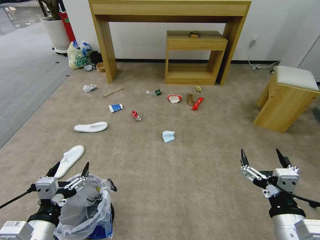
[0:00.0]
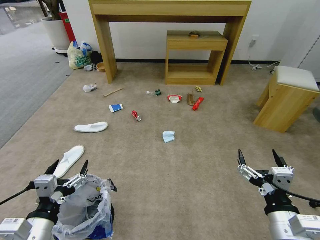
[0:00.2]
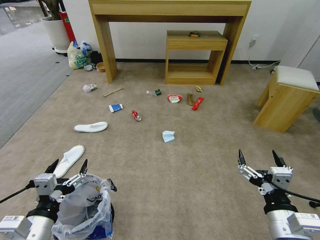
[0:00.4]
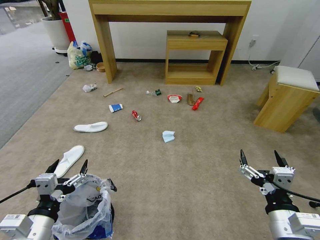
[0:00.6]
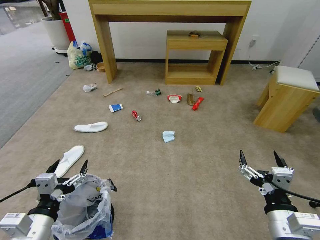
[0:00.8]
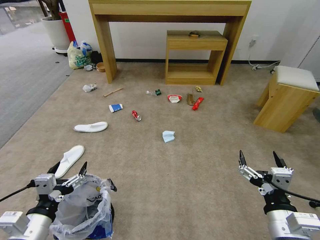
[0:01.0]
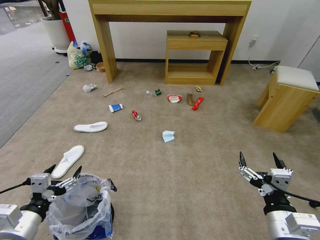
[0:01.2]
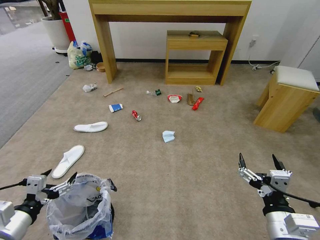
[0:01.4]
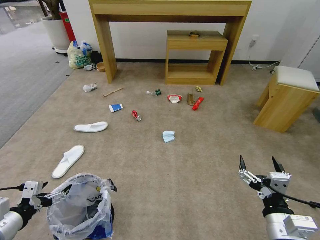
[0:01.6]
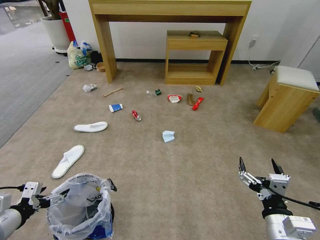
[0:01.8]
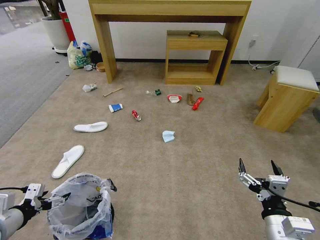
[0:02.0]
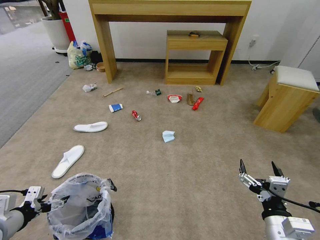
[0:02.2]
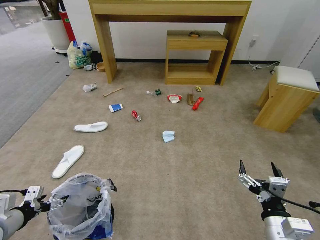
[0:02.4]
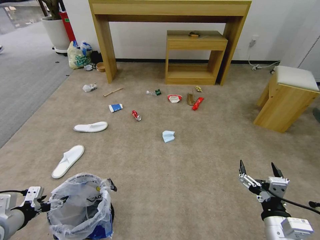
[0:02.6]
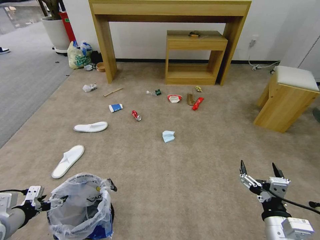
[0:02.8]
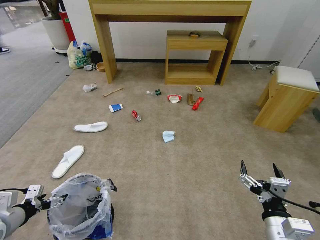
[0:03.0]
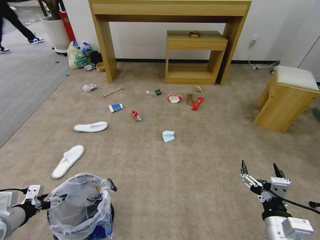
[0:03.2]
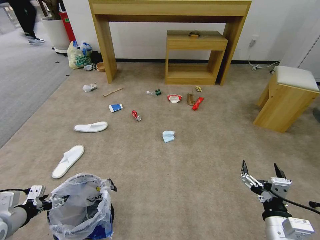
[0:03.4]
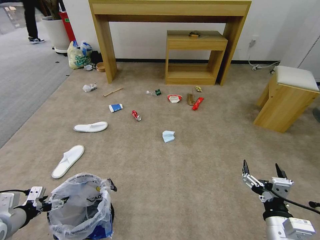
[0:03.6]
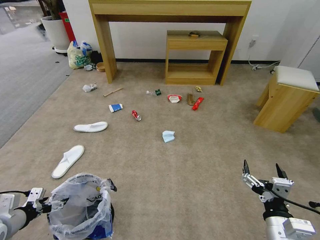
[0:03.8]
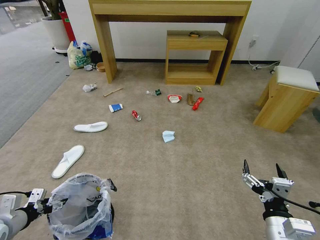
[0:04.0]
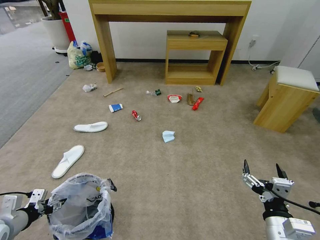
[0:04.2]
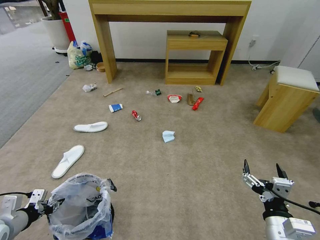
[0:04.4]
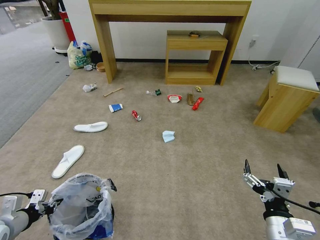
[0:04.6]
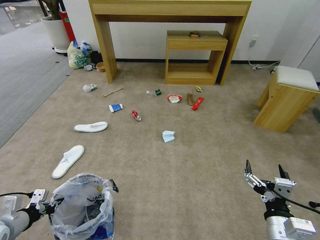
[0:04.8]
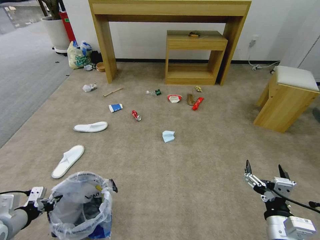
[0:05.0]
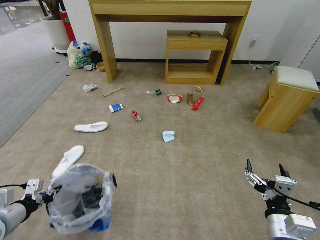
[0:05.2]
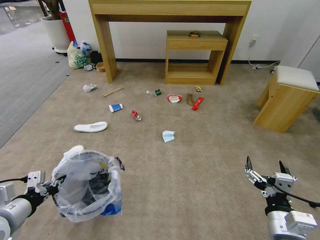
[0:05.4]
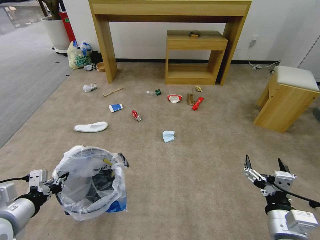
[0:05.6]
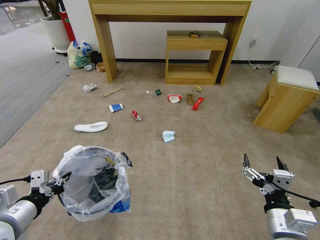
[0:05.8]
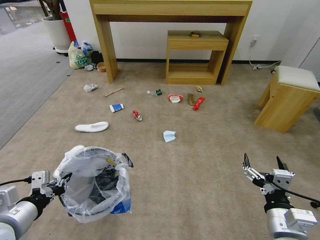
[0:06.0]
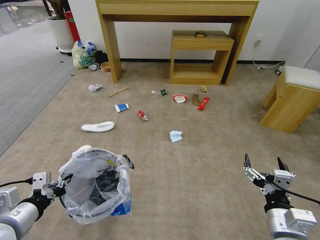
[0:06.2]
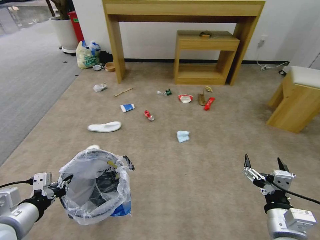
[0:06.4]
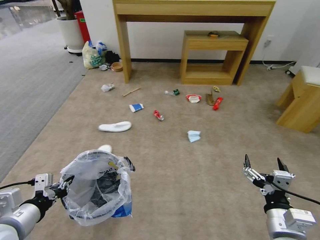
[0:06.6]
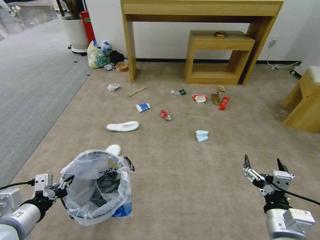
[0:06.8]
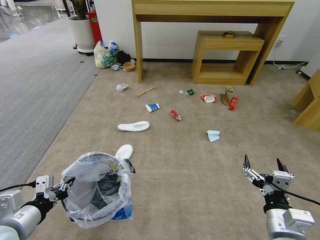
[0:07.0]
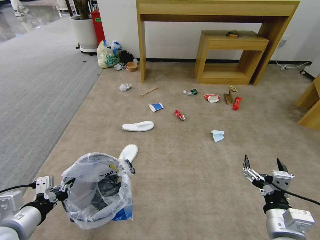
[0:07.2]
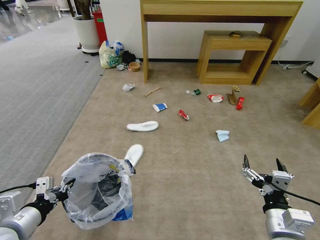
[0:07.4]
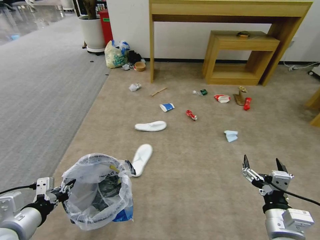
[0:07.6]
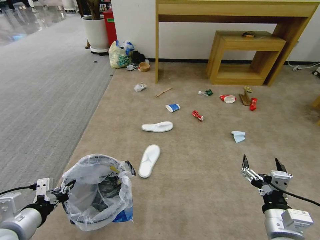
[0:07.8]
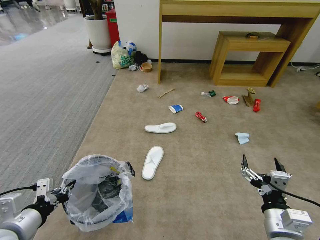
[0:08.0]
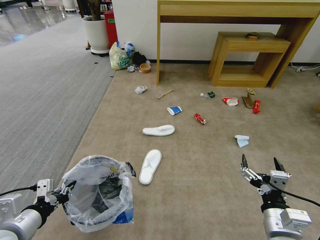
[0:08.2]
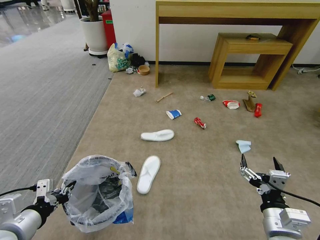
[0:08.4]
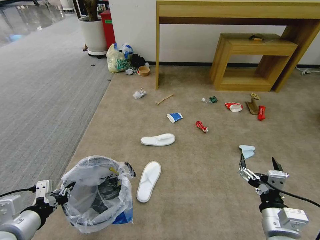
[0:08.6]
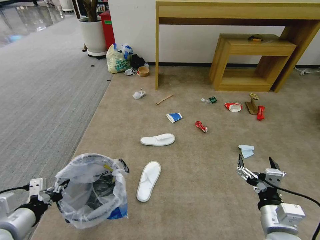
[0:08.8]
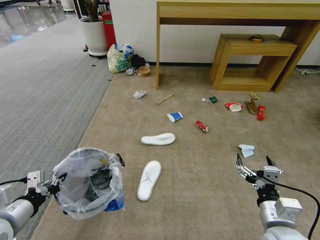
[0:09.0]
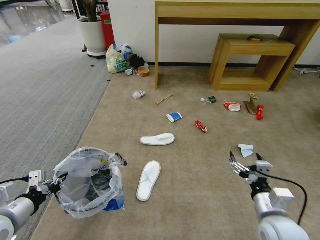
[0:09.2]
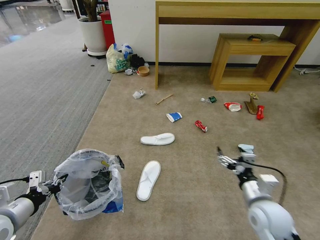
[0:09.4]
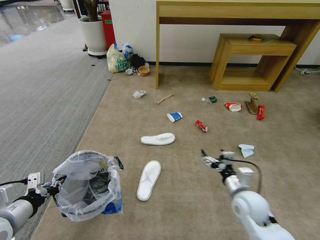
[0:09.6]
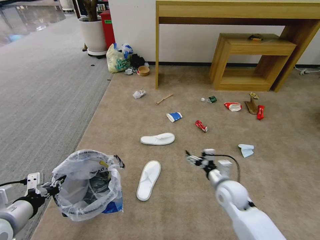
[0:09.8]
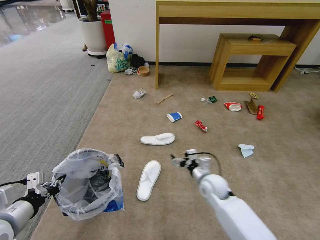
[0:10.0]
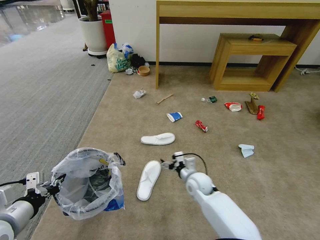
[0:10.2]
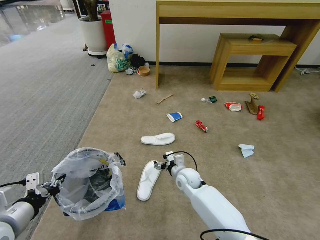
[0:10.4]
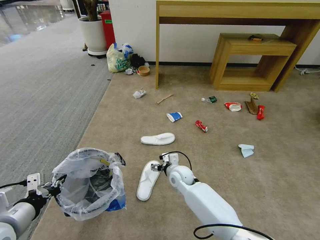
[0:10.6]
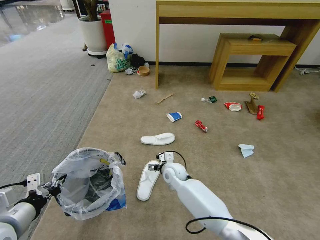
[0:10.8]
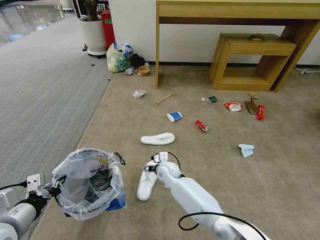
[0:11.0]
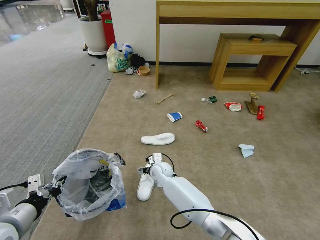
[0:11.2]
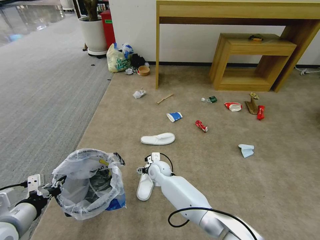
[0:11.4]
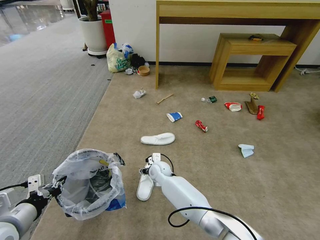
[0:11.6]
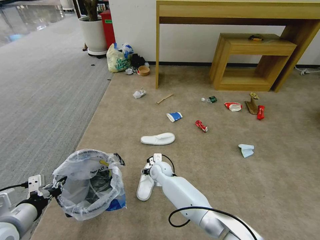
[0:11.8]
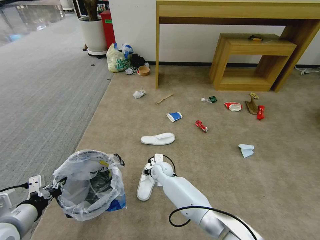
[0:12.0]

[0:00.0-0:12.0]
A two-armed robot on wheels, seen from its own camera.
Task of the whole recording: Pick up the trash bin and place the garbage on the floor into it.
0:01.6 to 0:03.0: The left gripper ends up approximately 10 cm from where it was.
0:03.0 to 0:04.4: The left gripper closes up.
0:04.4 to 0:06.0: The left gripper travels to the right and upward by approximately 15 cm.
0:09.0 to 0:10.4: The right gripper moves forward, to the left and downward, some 35 cm.
0:10.4 to 0:12.0: The right gripper shifts some 10 cm to the left, and closes.

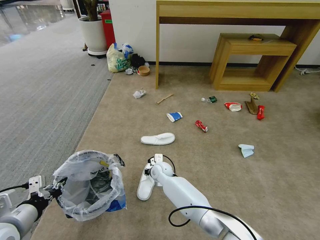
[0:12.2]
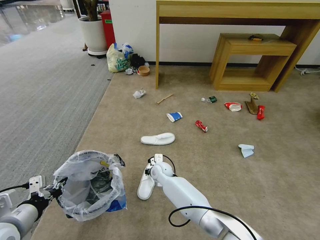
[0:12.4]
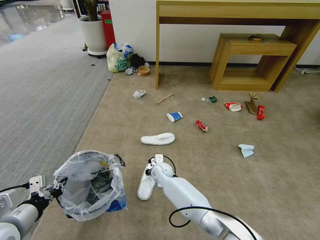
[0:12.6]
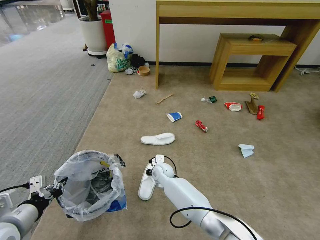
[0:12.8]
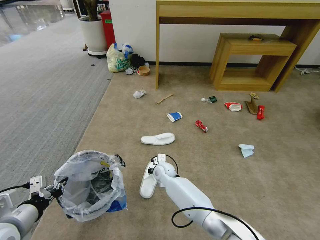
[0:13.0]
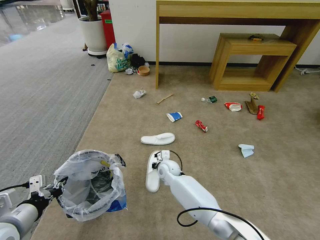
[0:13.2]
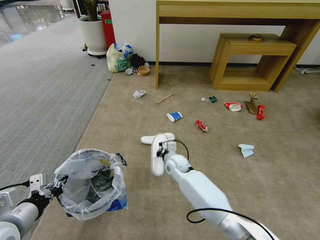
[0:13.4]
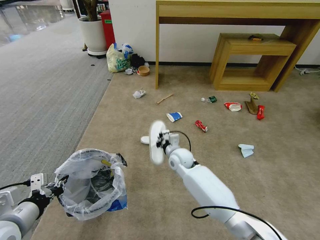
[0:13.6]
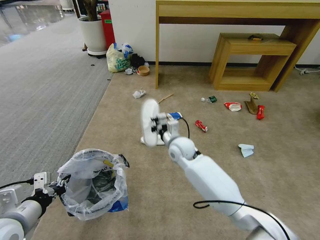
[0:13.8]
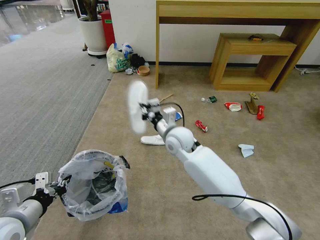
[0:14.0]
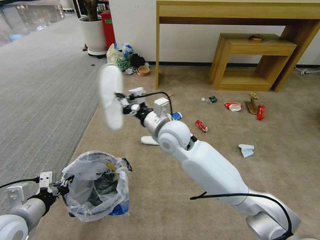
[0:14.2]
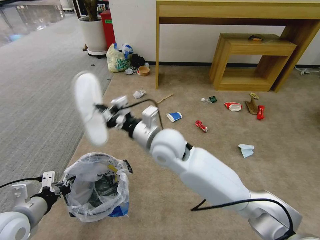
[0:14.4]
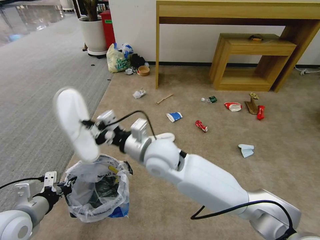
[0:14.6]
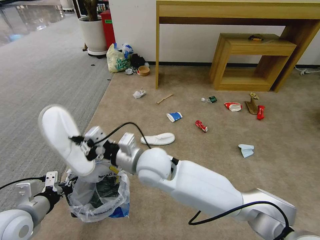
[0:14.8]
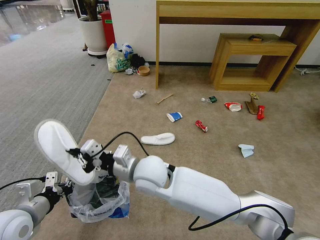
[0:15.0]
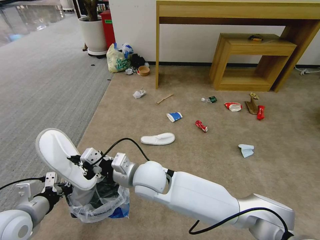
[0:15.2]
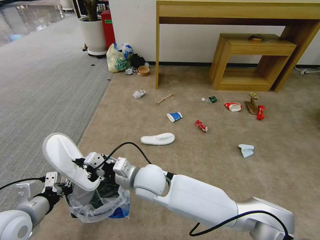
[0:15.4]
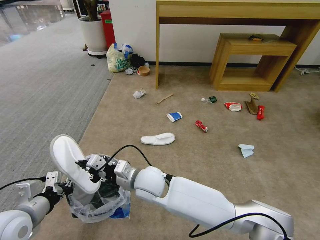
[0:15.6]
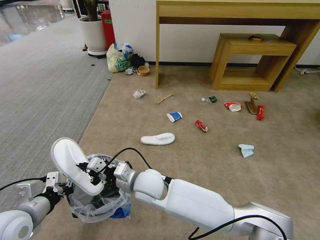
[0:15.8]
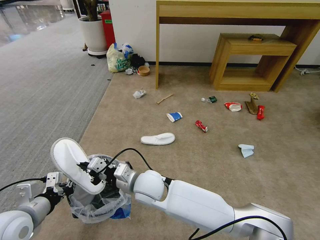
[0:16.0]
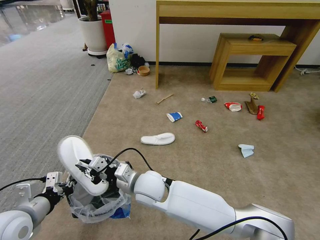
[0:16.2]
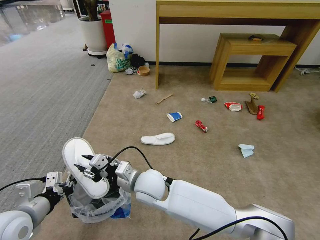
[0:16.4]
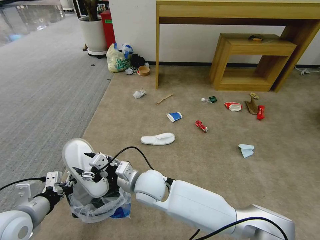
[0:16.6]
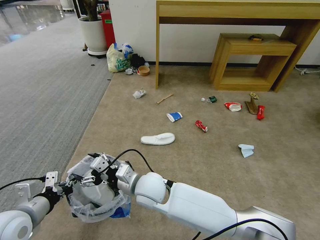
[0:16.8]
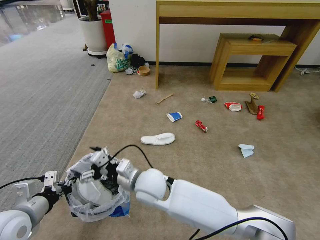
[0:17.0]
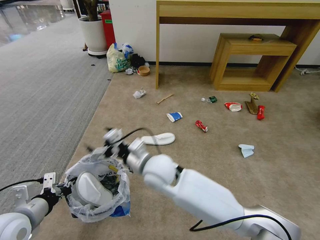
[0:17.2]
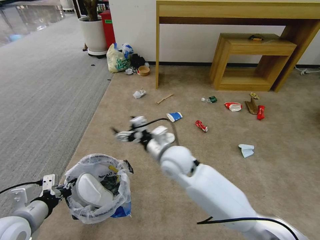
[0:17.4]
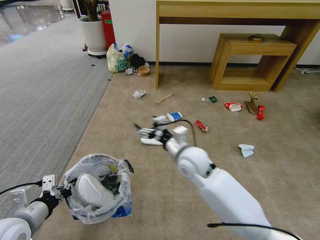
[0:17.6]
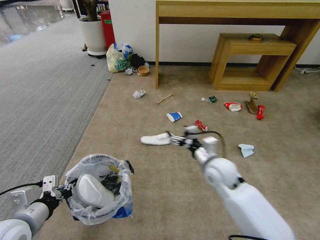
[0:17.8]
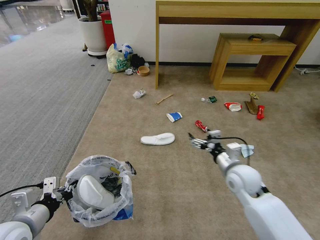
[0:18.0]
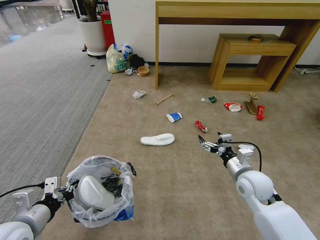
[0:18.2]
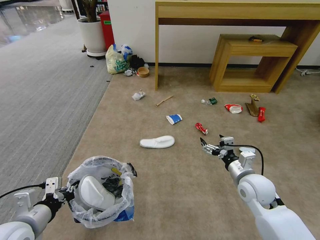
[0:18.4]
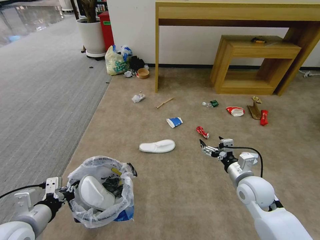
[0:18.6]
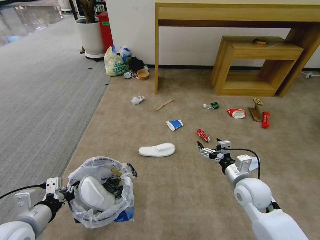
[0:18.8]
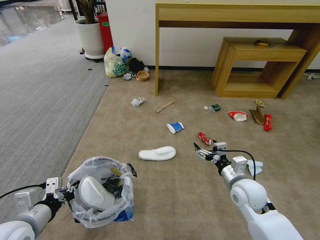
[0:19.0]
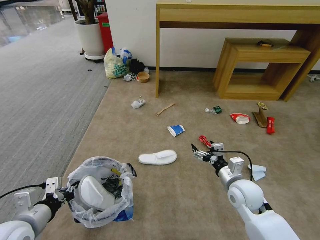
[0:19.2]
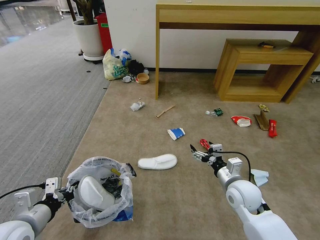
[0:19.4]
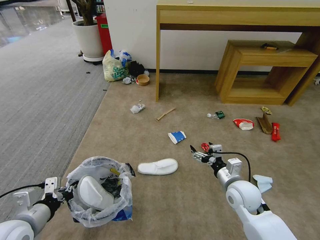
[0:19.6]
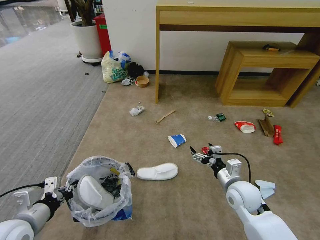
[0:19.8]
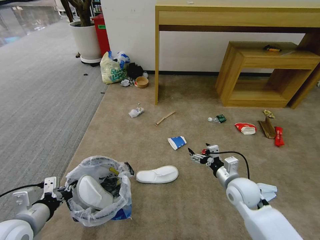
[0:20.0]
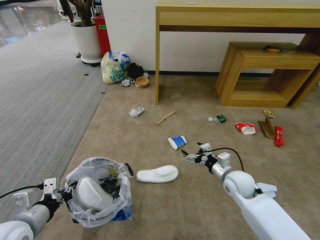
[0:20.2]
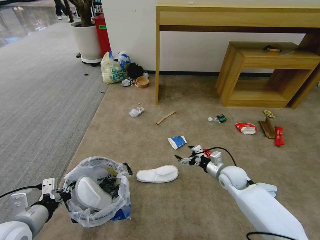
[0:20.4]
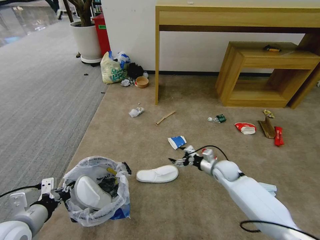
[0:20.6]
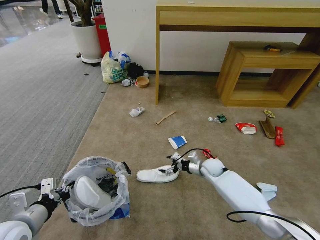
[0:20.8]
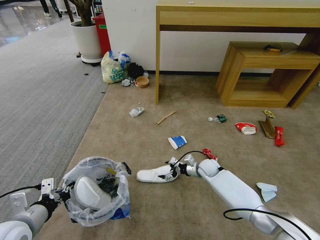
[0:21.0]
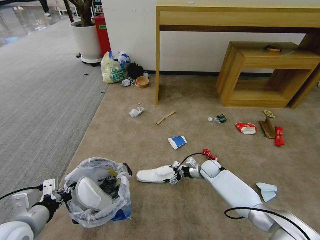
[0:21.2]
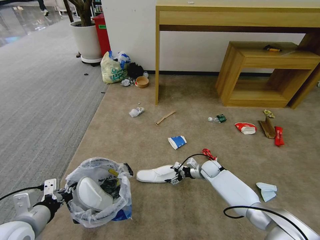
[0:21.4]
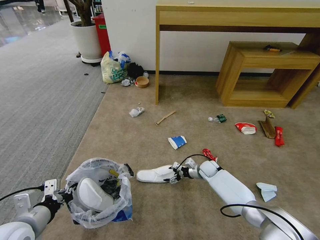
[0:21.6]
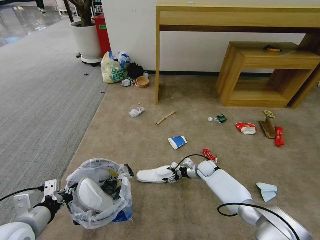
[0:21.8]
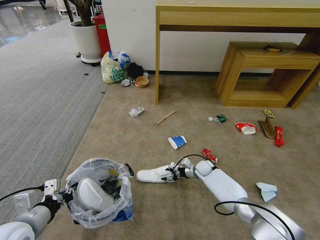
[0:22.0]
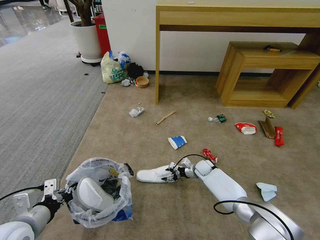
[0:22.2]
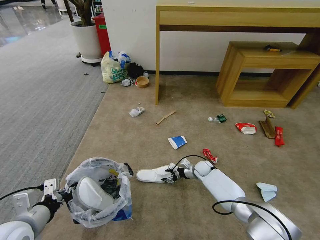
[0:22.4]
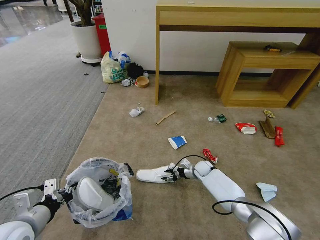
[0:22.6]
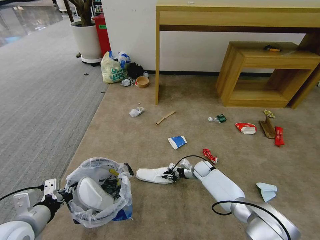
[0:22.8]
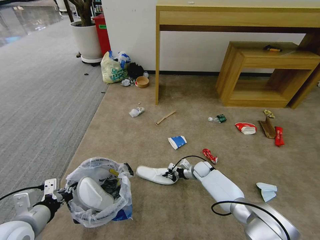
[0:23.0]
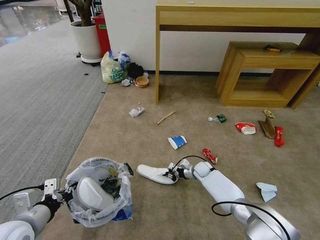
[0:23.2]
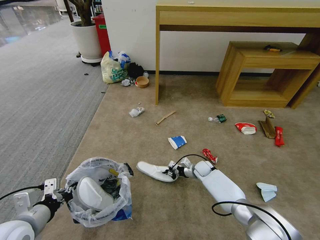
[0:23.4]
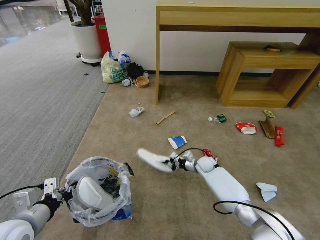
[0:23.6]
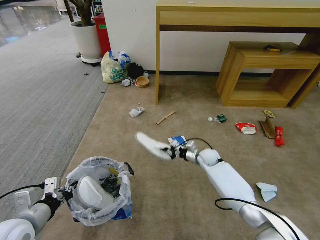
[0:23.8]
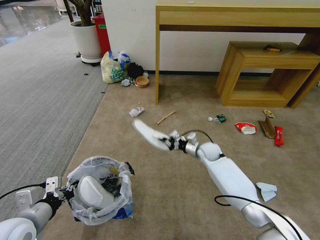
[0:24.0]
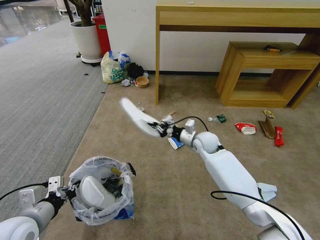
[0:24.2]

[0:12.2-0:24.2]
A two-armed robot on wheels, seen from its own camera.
Task of the whole recording: Pick up the trash bin and place the garbage on the floor into it.
0:12.2 to 0:13.8: The right gripper is displaced upward and to the right by roughly 15 cm, and closes.
0:13.8 to 0:15.2: The right gripper is displaced backward and to the left by roughly 20 cm.
0:15.2 to 0:16.6: The right gripper opens up.
0:16.6 to 0:18.2: The right gripper heads to the right, covering roughly 35 cm.
0:19.8 to 0:21.2: The right gripper goes roughly 25 cm forward and downward.
0:21.2 to 0:22.6: The right gripper closes.
0:22.6 to 0:24.2: The right gripper heads upward, covering some 20 cm, and closes its fingers.
